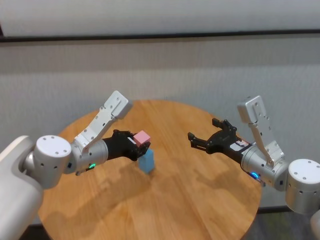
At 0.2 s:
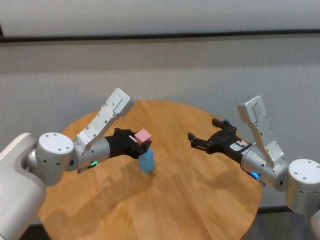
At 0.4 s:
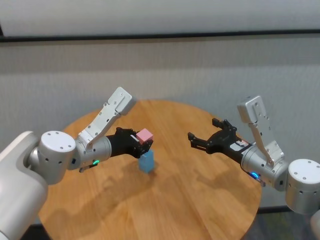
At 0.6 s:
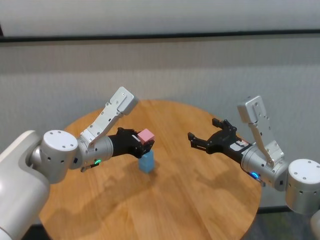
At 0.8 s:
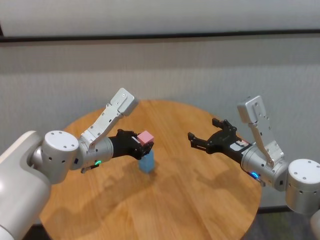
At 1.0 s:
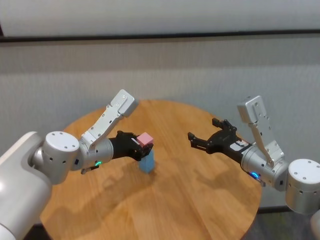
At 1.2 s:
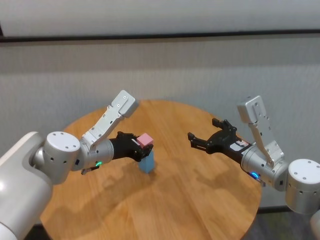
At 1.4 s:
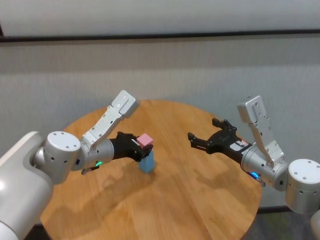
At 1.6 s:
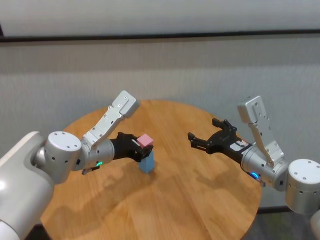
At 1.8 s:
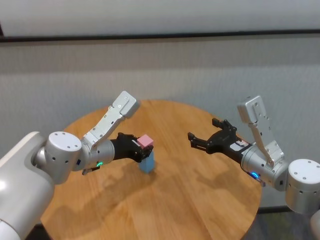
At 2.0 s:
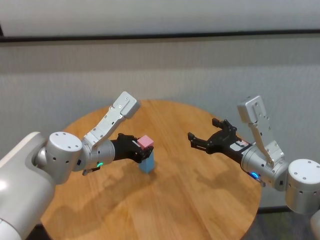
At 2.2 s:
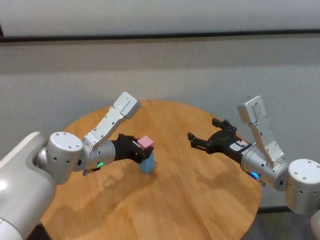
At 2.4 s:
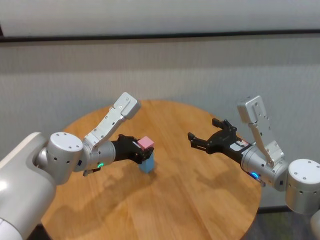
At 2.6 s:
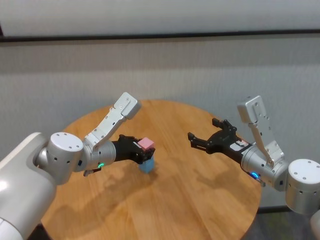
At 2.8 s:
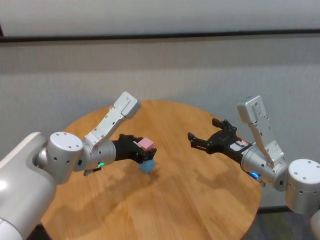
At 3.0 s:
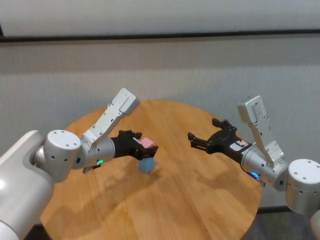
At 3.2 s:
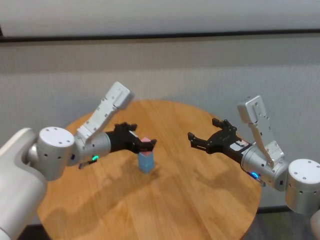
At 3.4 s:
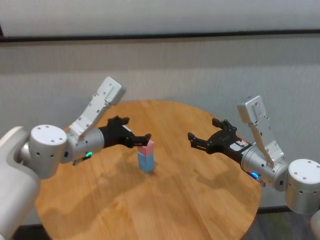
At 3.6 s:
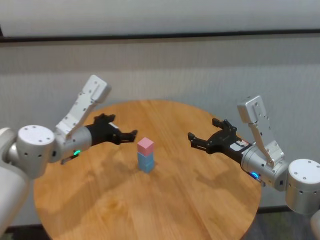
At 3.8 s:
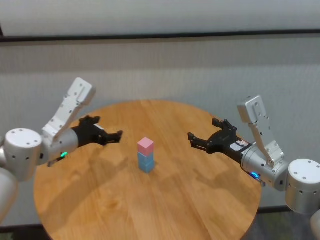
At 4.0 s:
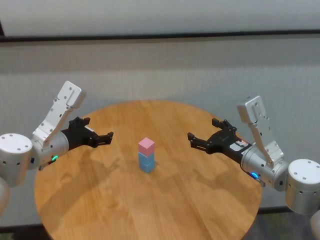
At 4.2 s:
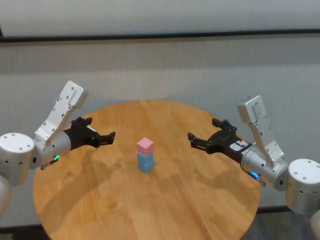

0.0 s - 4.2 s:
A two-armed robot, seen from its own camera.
Task of the whole recording: stack building blocks on the table.
Step, 0.0 s - 3.0 s: Place the pink building block on the blue building blocks with left gripper.
